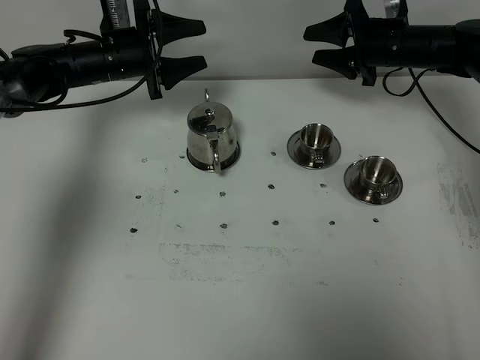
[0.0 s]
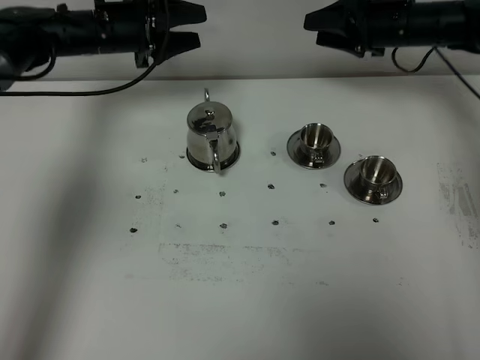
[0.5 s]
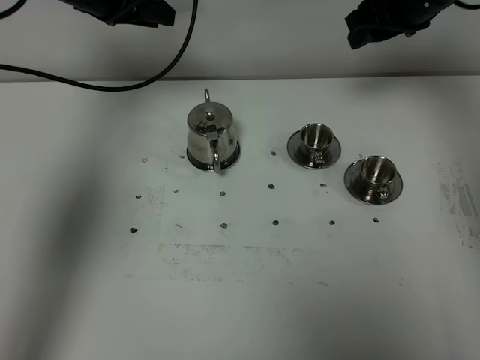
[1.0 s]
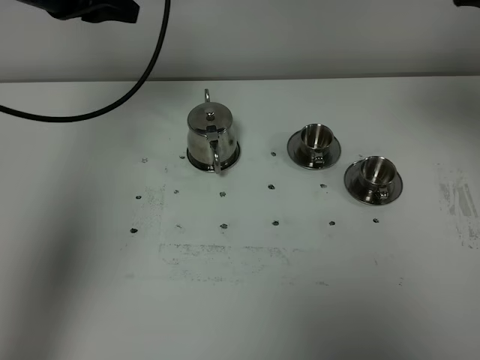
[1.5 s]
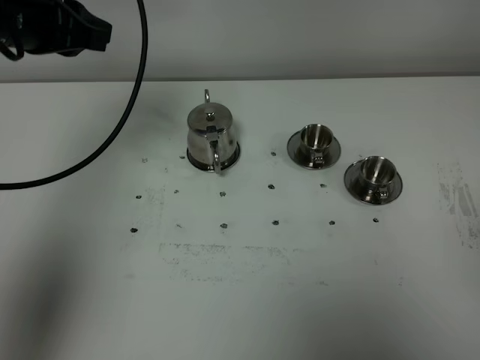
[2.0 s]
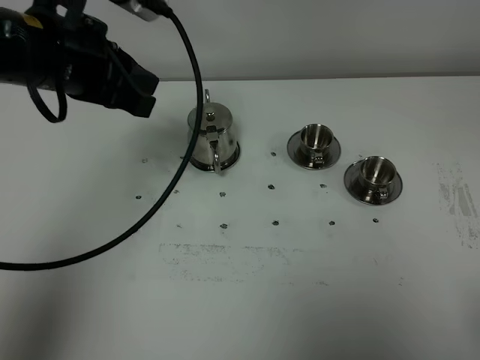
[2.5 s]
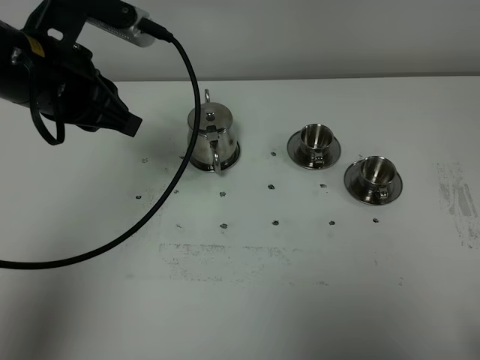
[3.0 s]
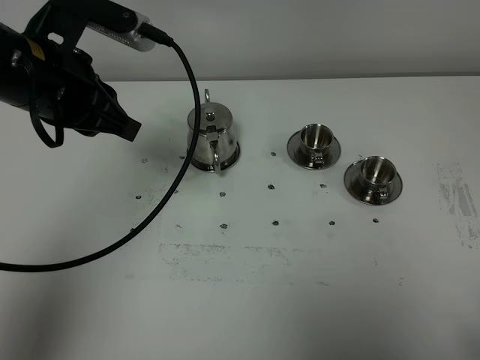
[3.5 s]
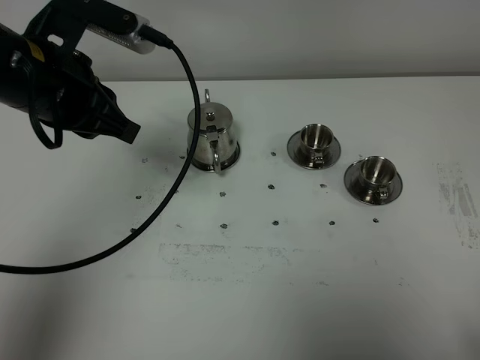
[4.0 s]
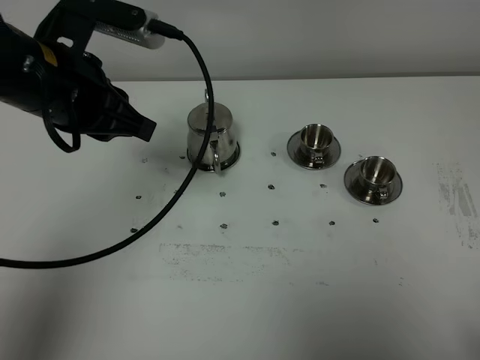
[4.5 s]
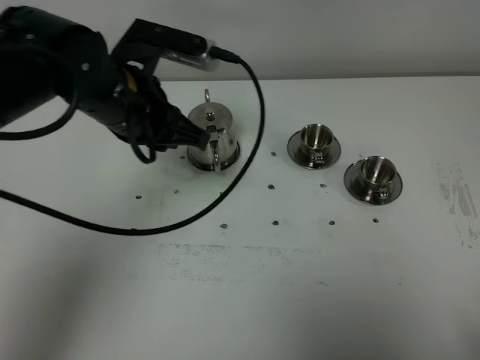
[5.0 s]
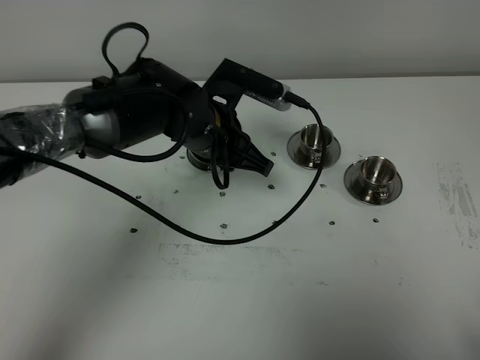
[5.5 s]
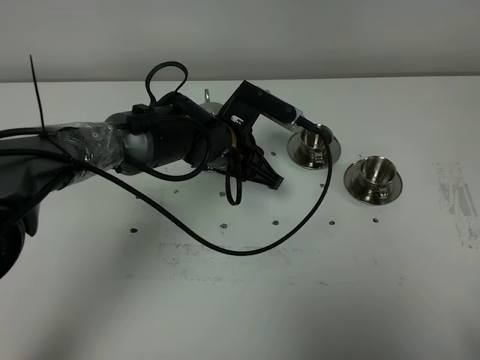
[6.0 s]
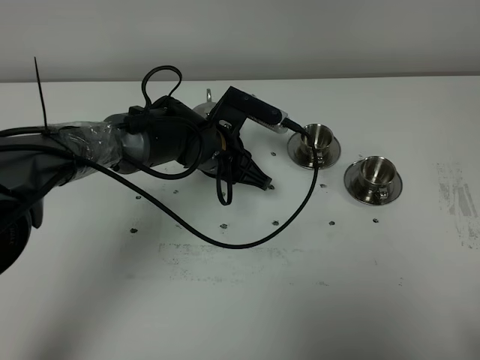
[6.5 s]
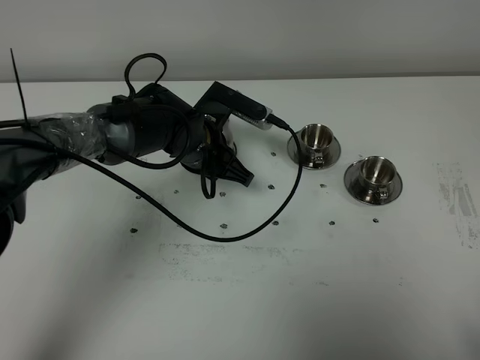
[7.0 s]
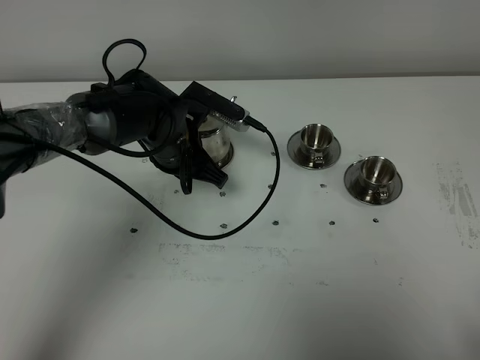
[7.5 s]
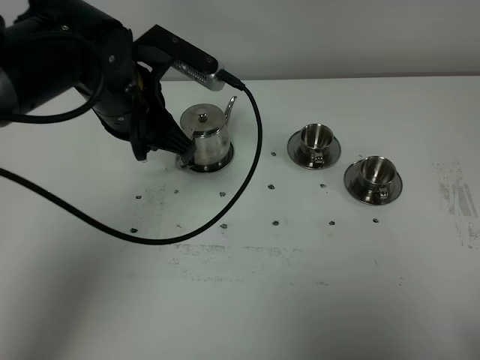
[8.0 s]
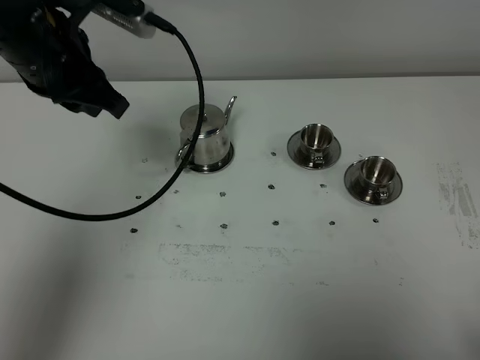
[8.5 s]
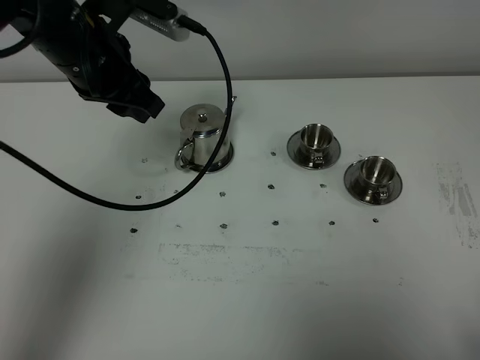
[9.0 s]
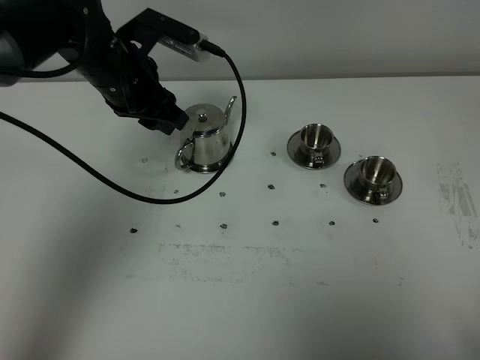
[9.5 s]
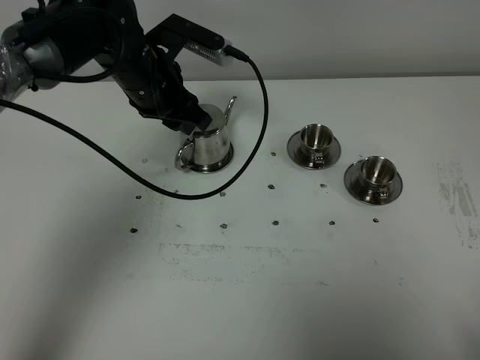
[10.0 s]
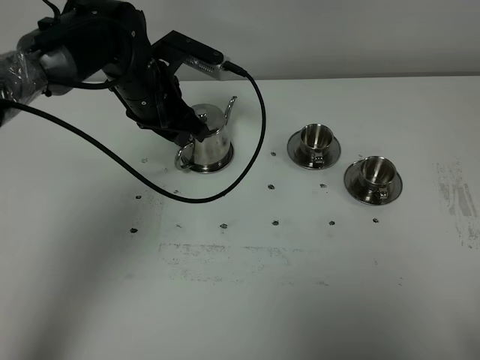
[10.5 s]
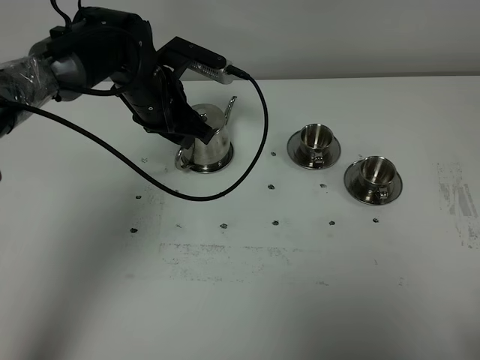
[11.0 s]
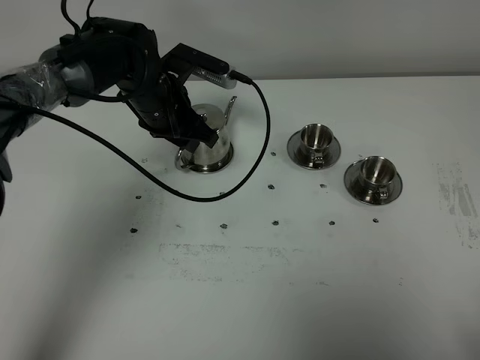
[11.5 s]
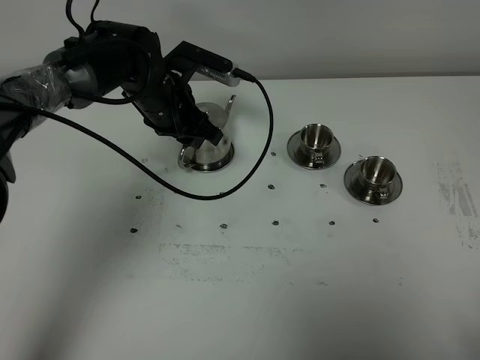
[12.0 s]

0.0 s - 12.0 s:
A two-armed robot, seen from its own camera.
Task of the whole recording: grasp the stainless steel teapot and pour the tea into the two stainless steel teacups one by one, put the stainless steel teapot back in its original place.
0.0 s - 2.0 s: The left gripper goes approximately 25 cm upward and backward, and closes its fingers, while the right gripper travels backward and upward by approximately 50 cm.
2.0 s - 4.0 s: The right gripper heads downward and backward, covering some 15 cm, and closes. The left gripper shifts approximately 5 cm backward and to the right.
4.0 s - 6.0 s: The left gripper goes about 25 cm downward, to the right and forward.
6.0 s - 8.0 s: The left gripper heads upward and to the left, covering approximately 15 cm.
8.0 s - 10.0 s: The left gripper heads forward, covering some 10 cm, and opens.
10.0 s - 12.0 s: The left gripper shifts roughly 5 cm downward.

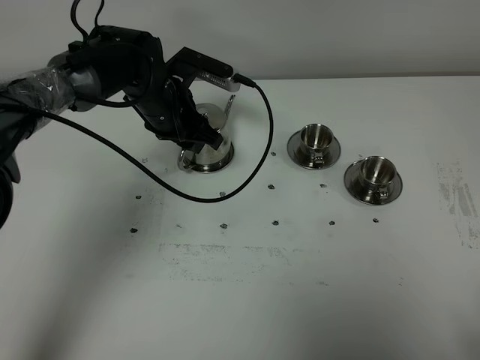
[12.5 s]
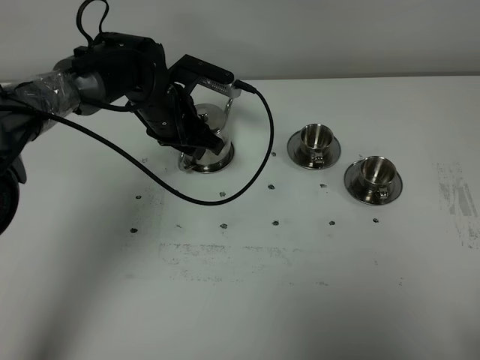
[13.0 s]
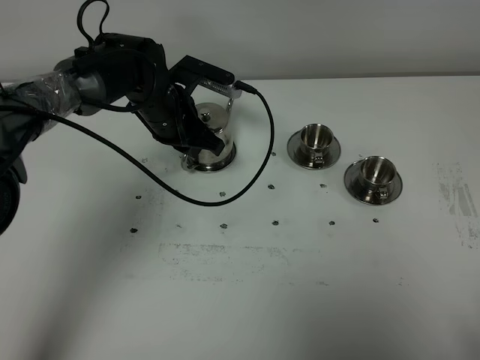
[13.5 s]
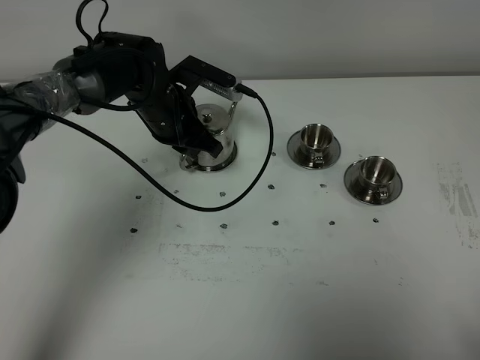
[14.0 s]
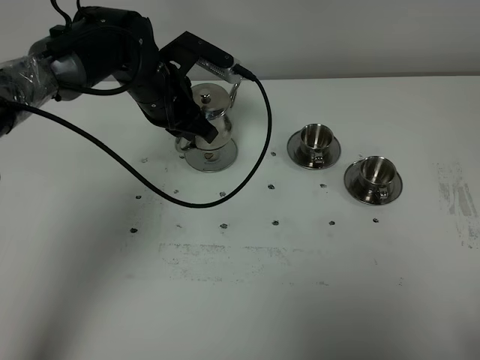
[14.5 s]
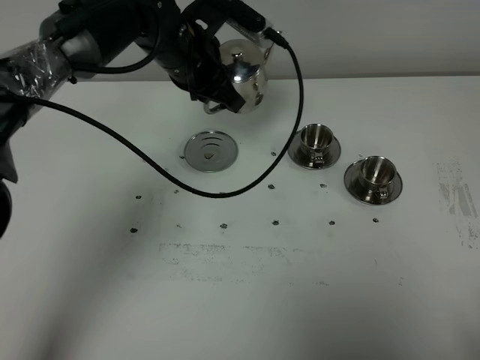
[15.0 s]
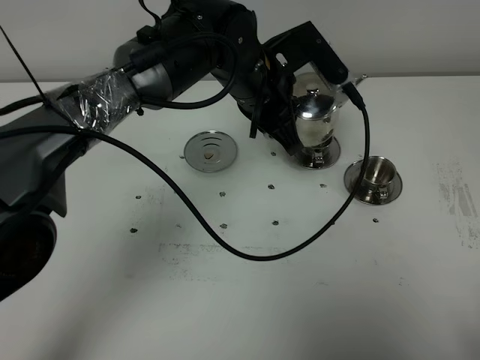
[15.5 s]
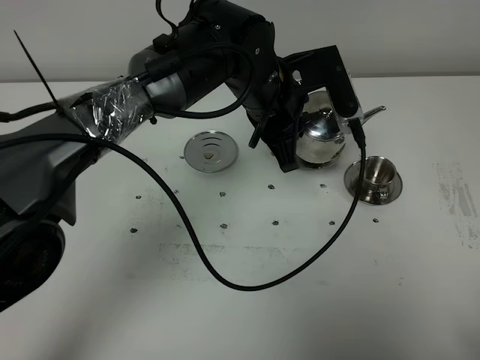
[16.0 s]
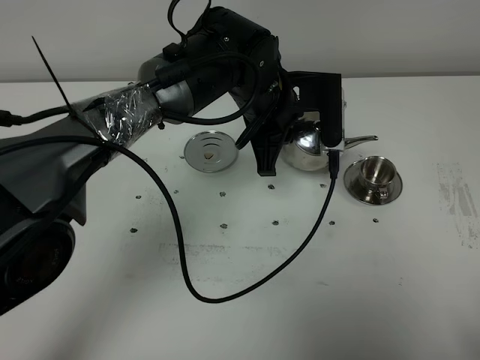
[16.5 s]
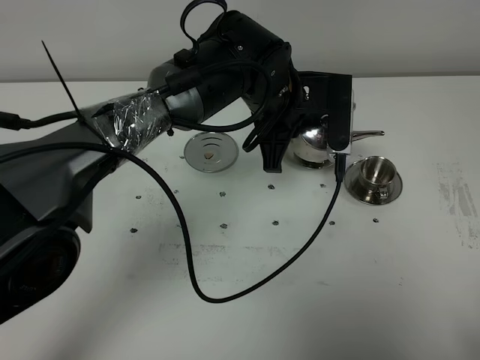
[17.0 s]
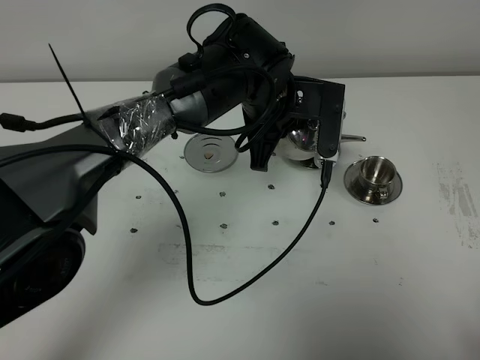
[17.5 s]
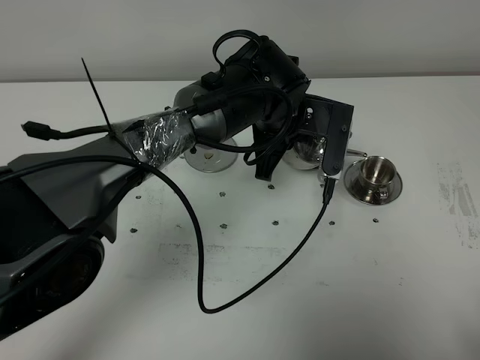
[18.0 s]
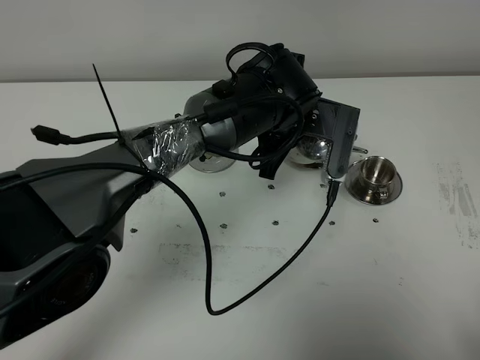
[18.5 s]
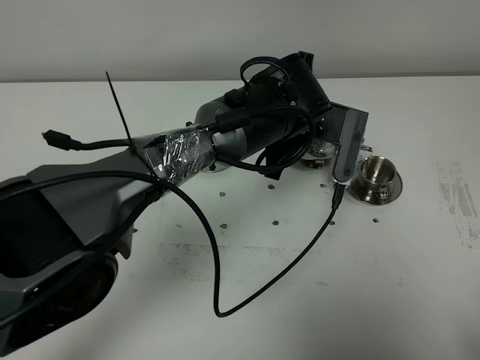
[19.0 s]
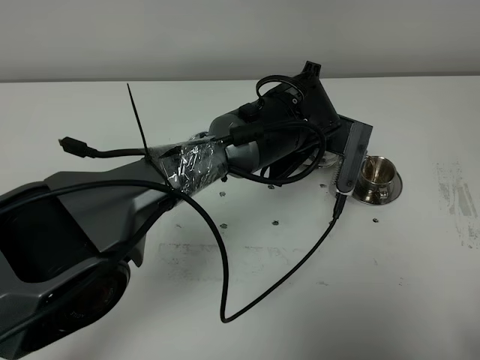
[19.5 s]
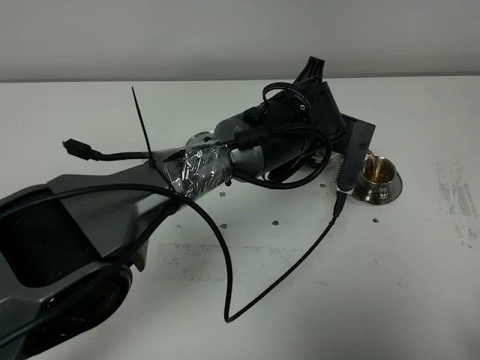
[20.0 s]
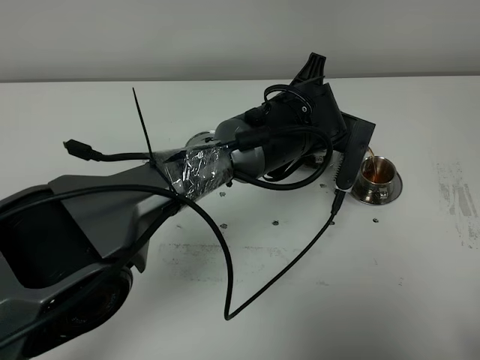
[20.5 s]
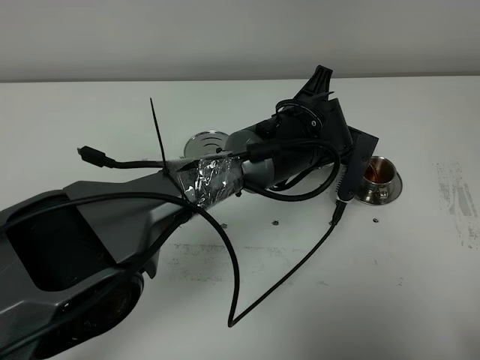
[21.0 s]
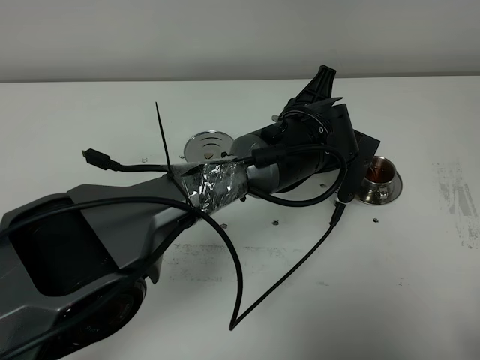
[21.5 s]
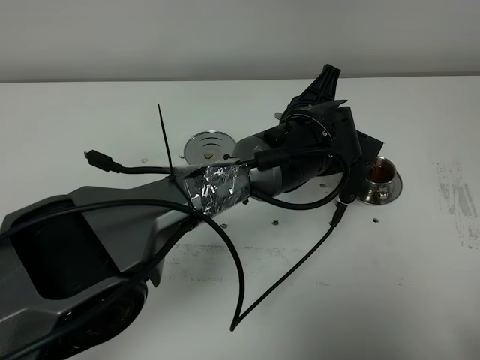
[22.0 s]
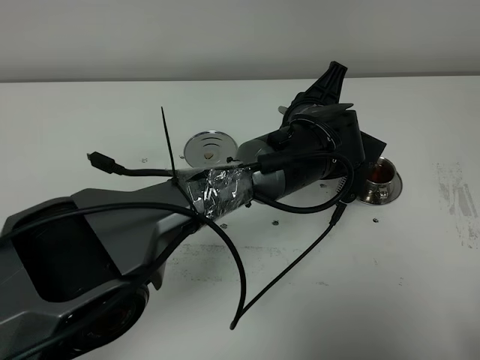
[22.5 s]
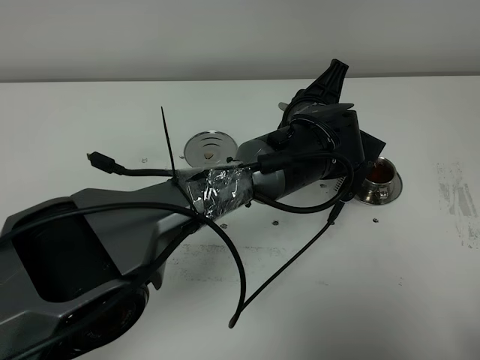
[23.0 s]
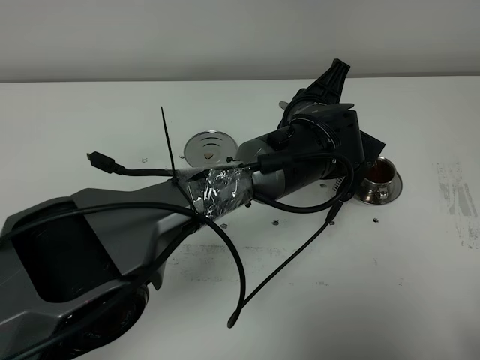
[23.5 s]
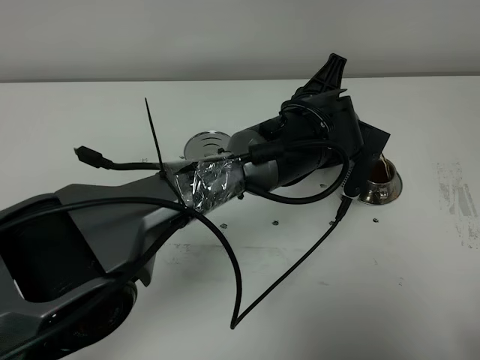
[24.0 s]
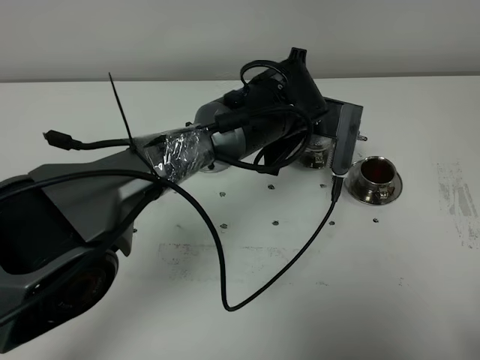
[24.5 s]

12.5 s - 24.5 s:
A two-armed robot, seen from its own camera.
Task of the whole recording: grasp the stainless steel teapot and pour the tea into the two stainless steel teacups one by one, put the stainless steel teapot back in its original place.
Step, 12.5 s - 14.5 s: Pick up the teapot with the left gripper.
Step, 15.0 s - 24.0 s: Pour tea into the teacup with the left gripper.
12.5 s - 14.5 s: The left gripper closes its fingers.
14.5 s - 16.5 s: The left gripper travels to the right by roughly 15 cm.
20.5 s - 22.5 s: The grippers make only small movements.

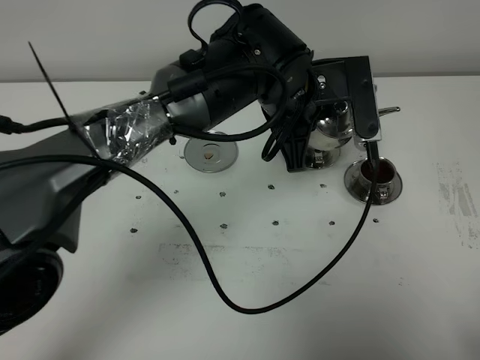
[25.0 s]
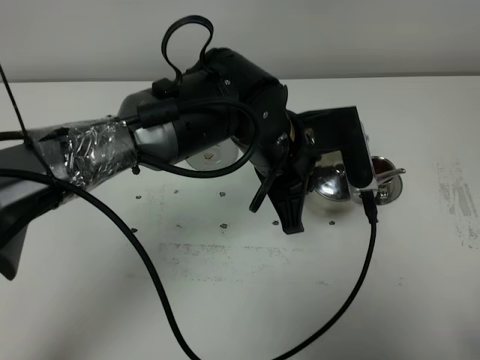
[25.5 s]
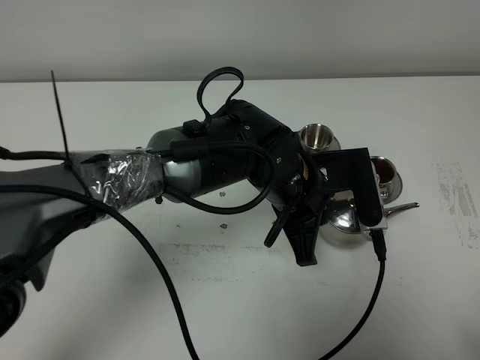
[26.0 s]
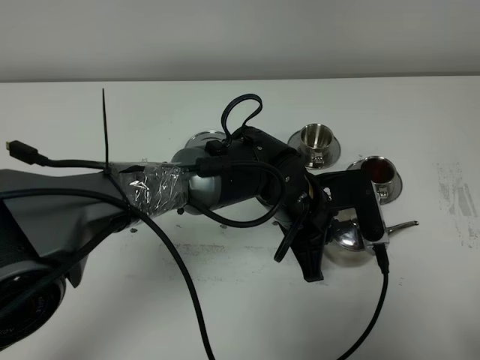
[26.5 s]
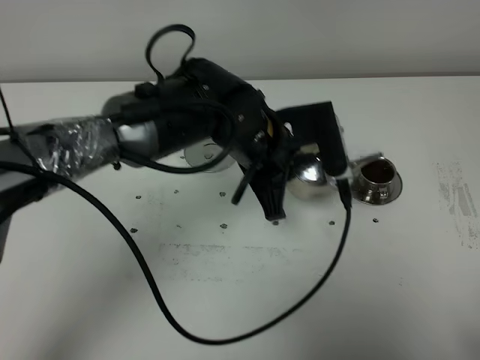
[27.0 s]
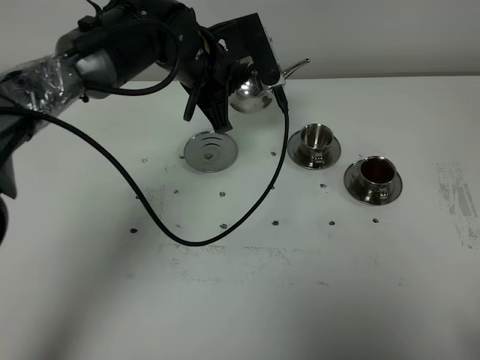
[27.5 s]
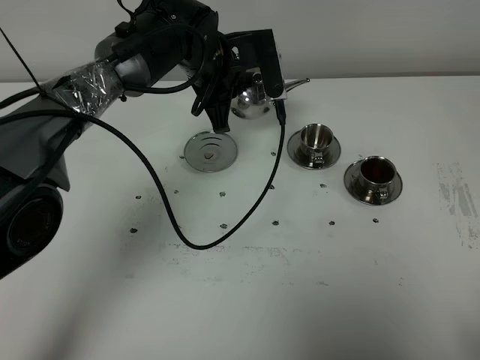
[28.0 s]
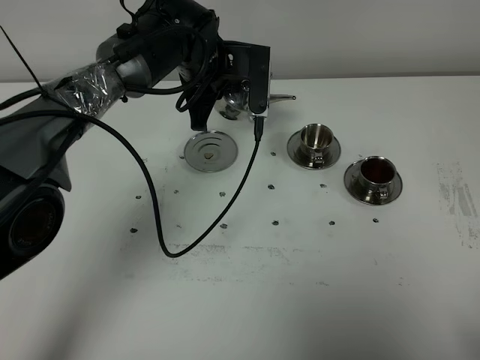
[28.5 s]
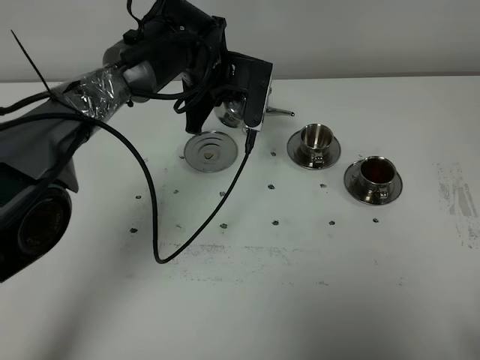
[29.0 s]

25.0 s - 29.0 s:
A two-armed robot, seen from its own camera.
Task of the whole recording: grasp the stainless steel teapot and pour the tea into the two stainless steel teacups one by one, put the stainless steel teapot back in its original place.
25.0 s - 27.0 s: The left gripper goes downward and returns, roughly 10 cm each way.
27.0 s - 29.0 s: The left gripper travels forward by approximately 15 cm.
